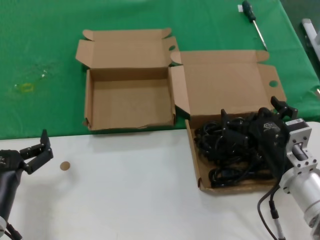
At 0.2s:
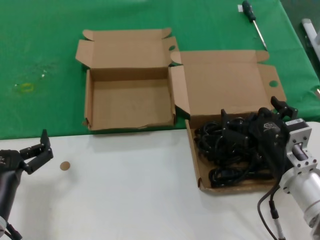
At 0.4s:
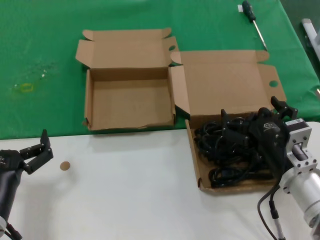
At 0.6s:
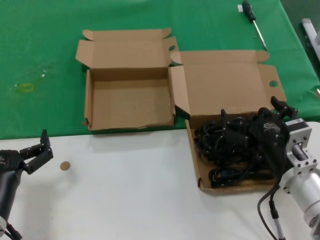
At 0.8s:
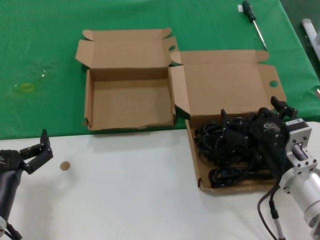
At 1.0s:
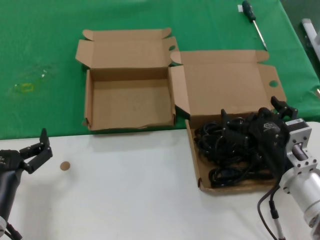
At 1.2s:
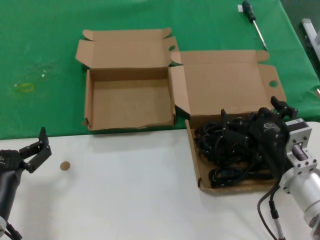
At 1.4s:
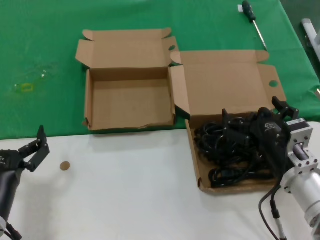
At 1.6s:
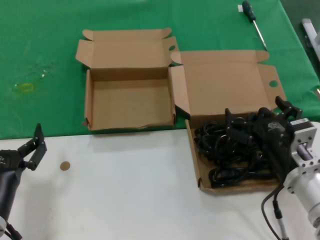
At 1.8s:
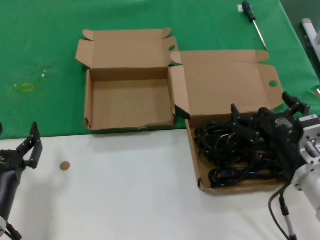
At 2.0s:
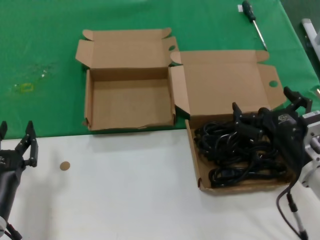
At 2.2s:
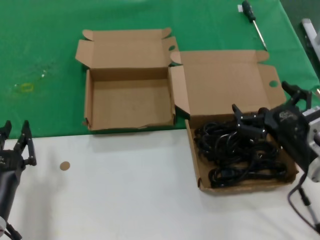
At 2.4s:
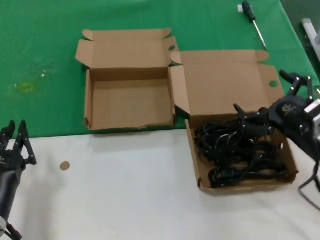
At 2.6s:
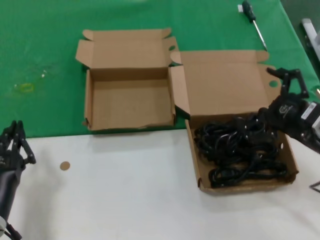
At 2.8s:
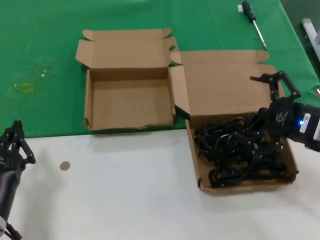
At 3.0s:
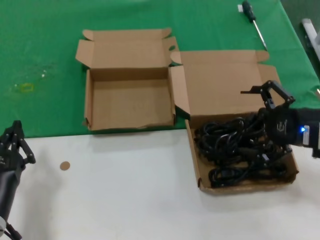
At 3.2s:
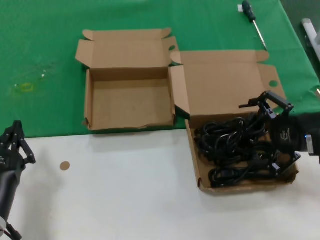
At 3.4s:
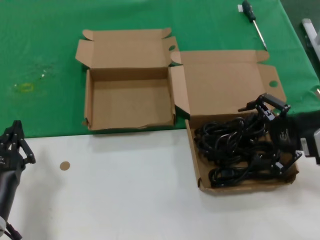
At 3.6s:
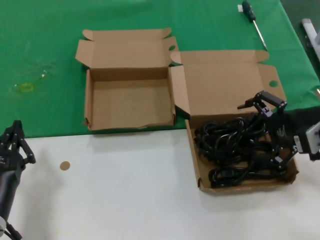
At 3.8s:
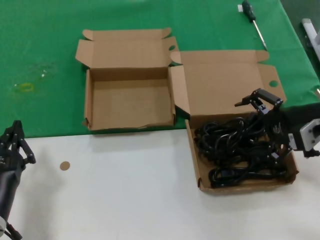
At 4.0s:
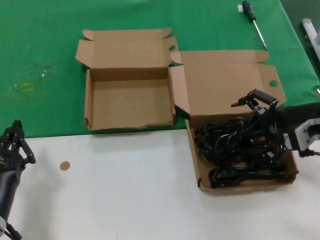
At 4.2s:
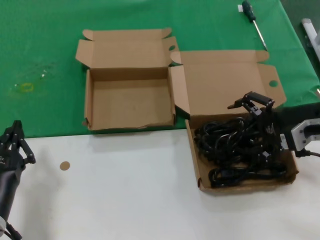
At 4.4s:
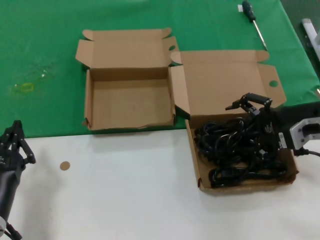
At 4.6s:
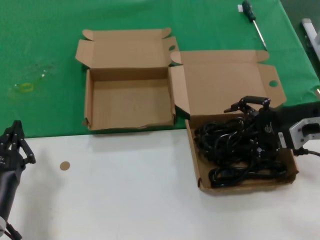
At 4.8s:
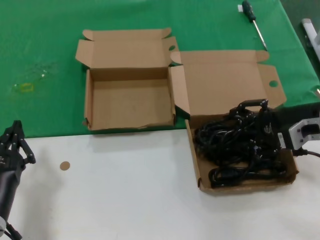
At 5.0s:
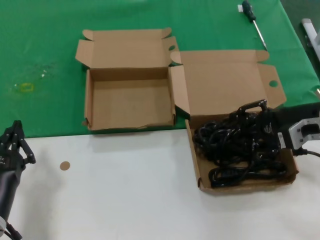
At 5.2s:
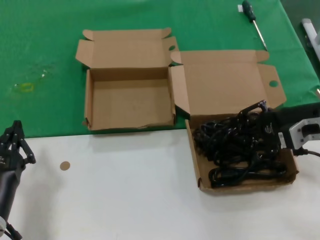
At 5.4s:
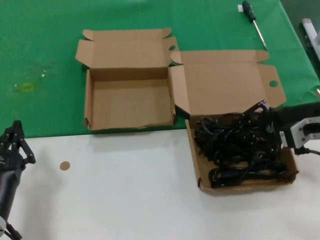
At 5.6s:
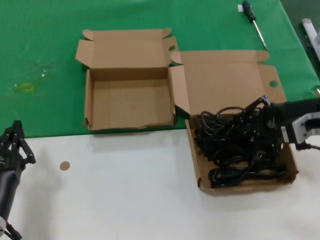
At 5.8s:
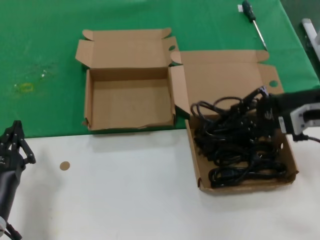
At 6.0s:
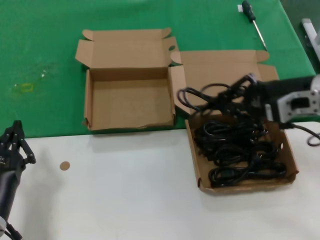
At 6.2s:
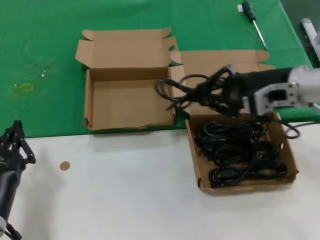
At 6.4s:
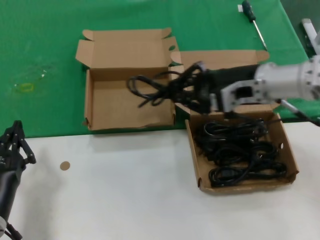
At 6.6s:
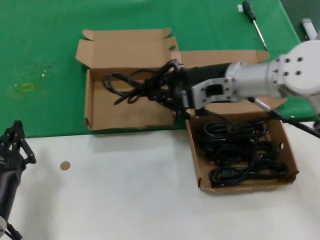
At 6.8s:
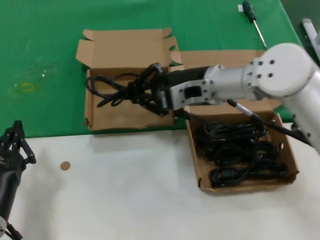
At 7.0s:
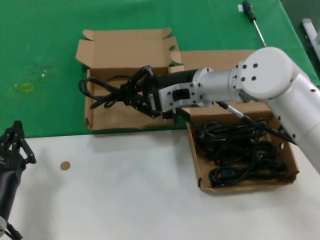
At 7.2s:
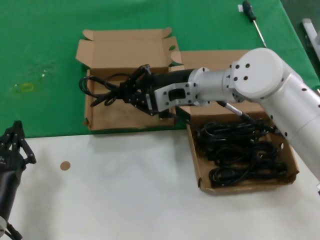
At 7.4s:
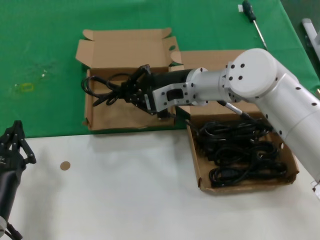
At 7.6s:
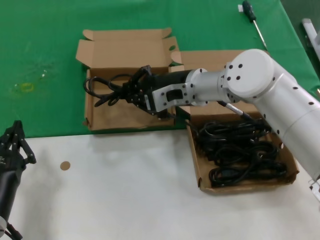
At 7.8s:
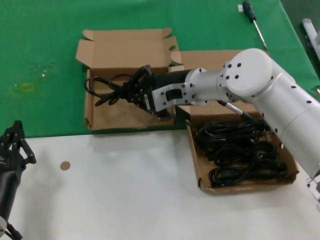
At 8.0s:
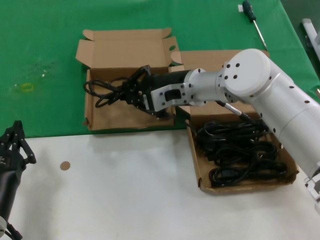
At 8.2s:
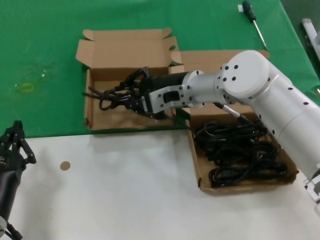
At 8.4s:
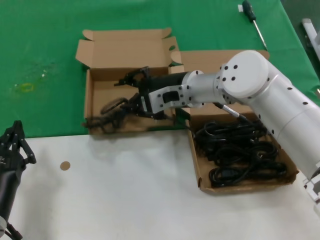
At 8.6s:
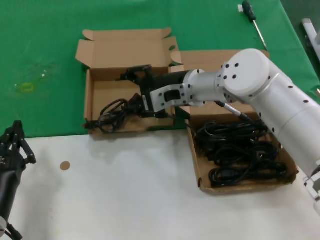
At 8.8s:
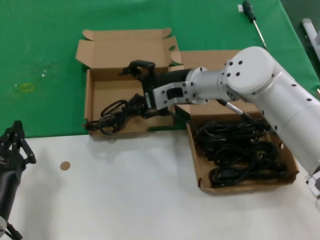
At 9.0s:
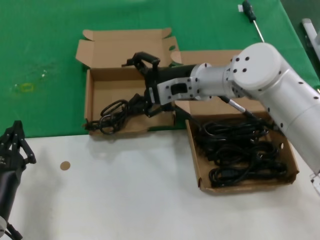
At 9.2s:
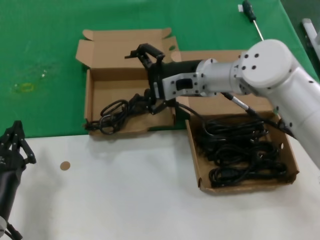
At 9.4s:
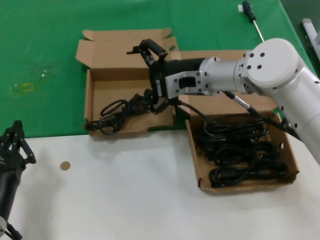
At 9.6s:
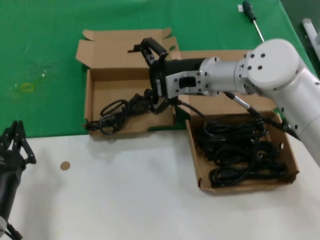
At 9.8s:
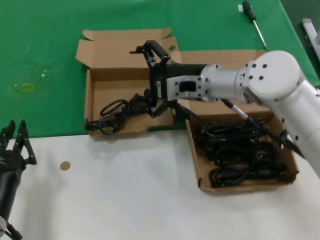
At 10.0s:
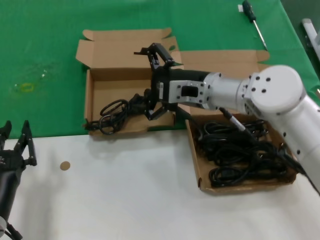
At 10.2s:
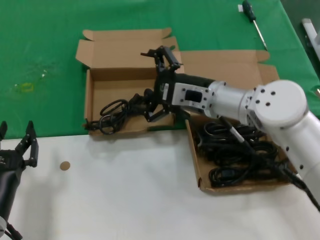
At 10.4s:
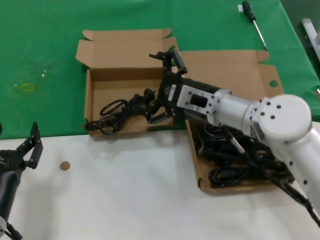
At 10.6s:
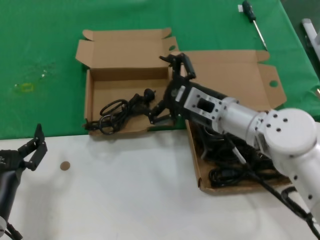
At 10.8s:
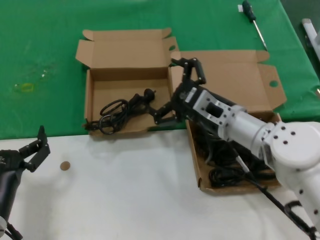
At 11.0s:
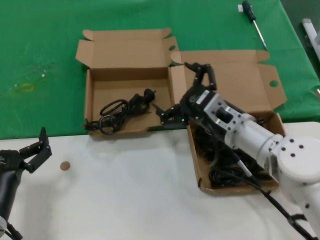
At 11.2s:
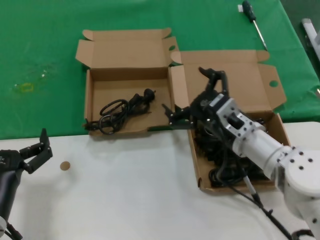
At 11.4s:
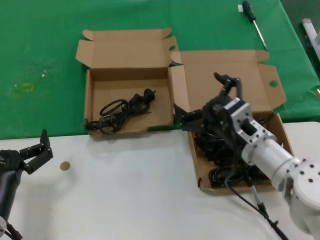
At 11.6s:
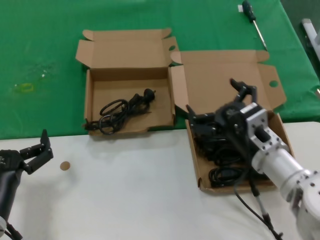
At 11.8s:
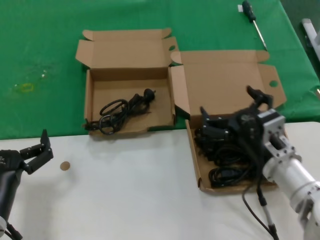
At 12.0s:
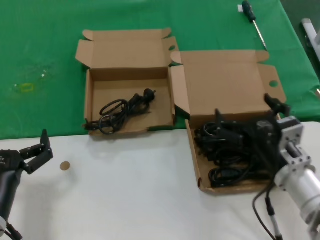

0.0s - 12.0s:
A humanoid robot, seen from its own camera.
Task of the whole recording: take the parts from the box containing them and put them into an empty box.
Step, 0.0s - 5.2s: Grasp the data cable.
Step, 5.4s - 8.6s: Place the data cable in the another box.
0.0s - 1.6s: The two hands keep their place.
1.6s - 3.0s: The right hand moves upward and to the right, roughly 15 cm.
3.0s - 4.4s: The right hand moves forward, some 5 cm.
4.4s - 6.0s: The hands make only small movements.
6.0s - 7.6s: The right hand heads to the left and forward, covering roughly 20 cm.
7.6s - 9.0s: Neither hand changes place.
9.0s - 10.4s: The right hand moves backward, roughly 5 cm.
10.4s - 12.0s: The right hand travels backward, downward and to the right by roughly 20 cm.

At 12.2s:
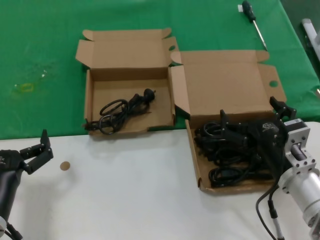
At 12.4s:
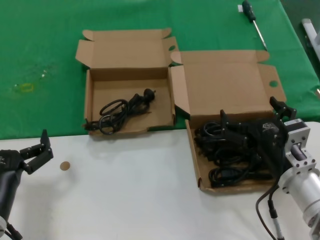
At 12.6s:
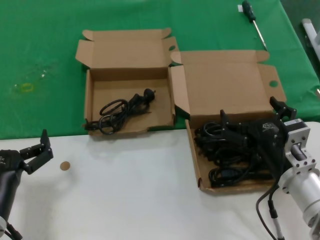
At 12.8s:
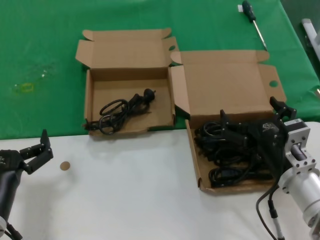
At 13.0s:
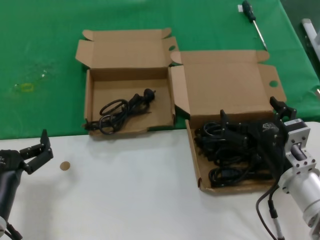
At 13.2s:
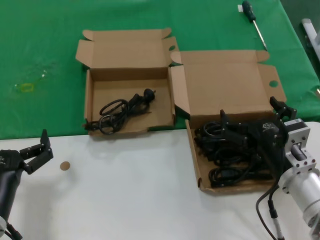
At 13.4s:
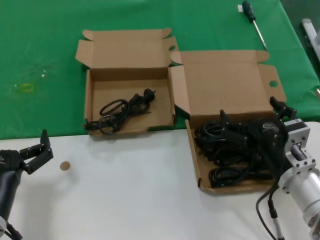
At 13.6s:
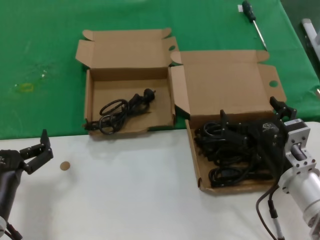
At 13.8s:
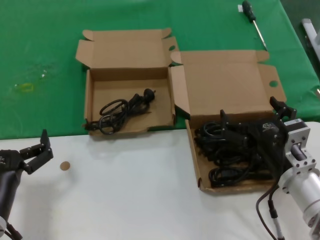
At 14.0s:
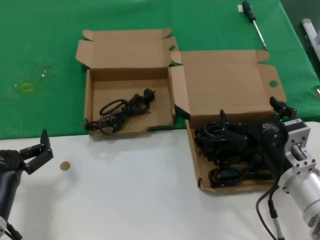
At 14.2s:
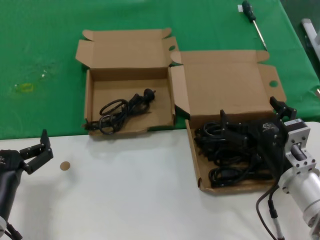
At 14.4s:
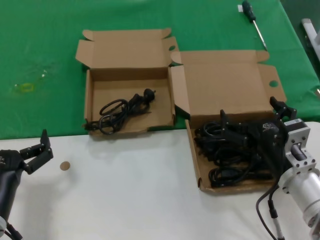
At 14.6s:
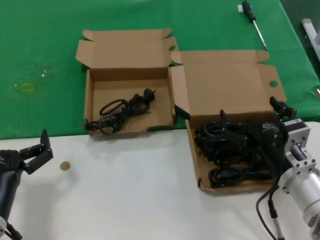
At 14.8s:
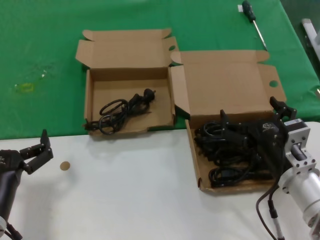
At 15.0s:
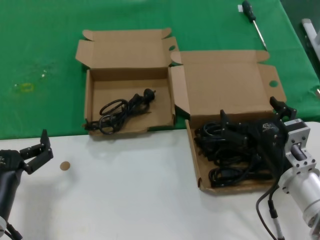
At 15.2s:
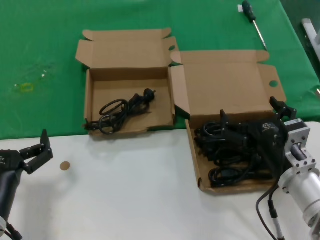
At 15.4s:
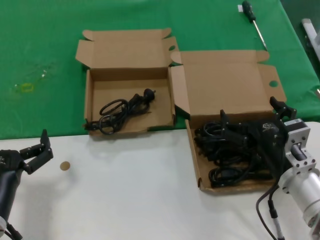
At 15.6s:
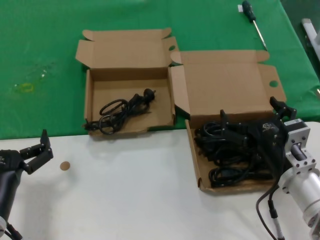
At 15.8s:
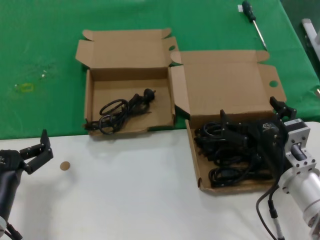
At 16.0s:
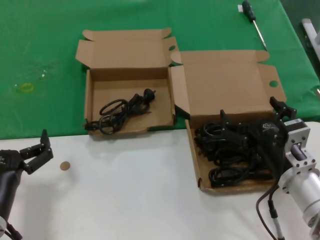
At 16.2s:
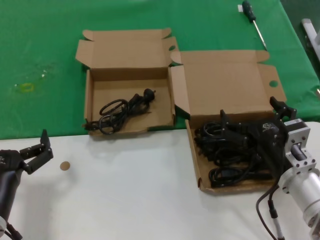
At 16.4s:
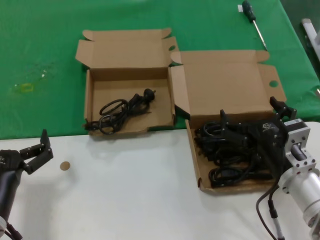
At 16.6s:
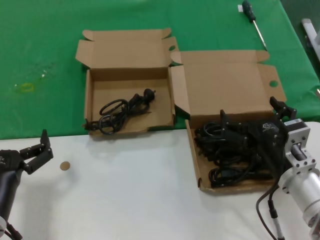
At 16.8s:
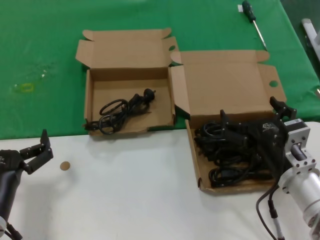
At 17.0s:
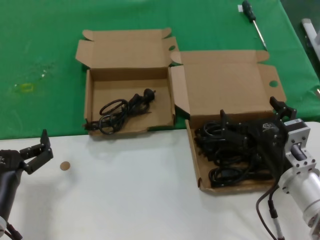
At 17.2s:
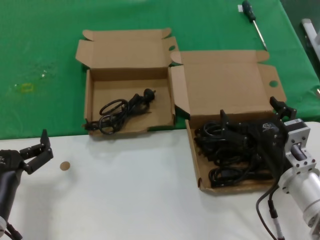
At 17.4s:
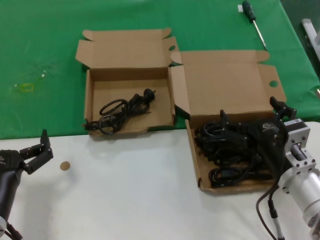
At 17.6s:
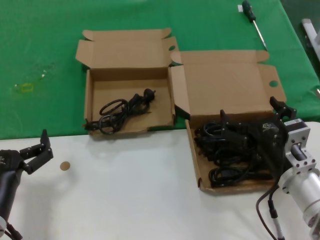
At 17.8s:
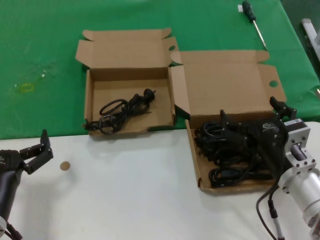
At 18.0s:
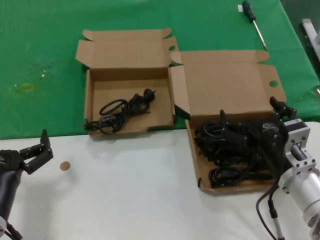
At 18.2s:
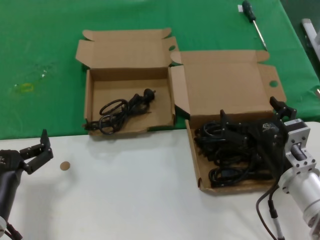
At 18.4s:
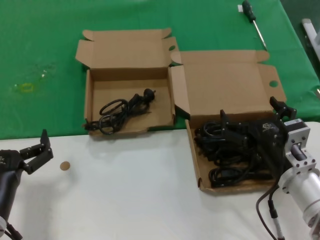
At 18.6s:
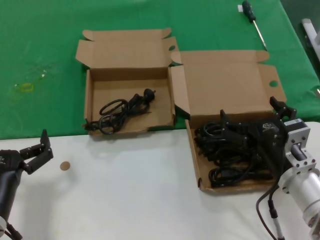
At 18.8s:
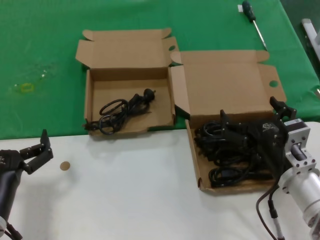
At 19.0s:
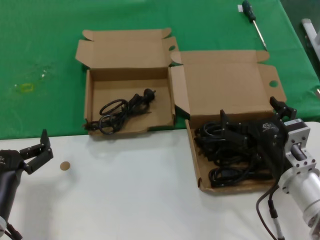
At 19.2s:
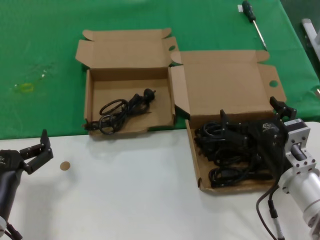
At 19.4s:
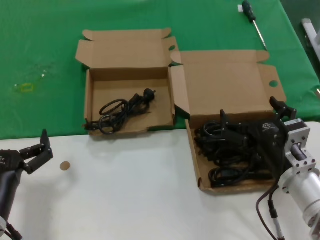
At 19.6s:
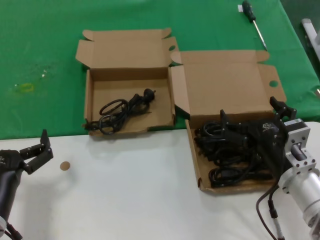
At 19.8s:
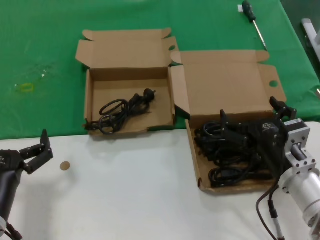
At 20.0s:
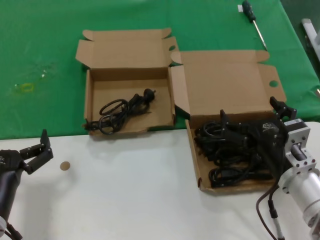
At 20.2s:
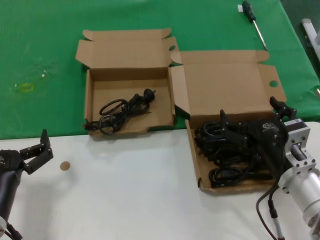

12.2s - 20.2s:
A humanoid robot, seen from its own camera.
Task of the whole recording: take the parts from the box containing them and put them into an empty box.
12.2s - 20.2s: Both hands stay put.

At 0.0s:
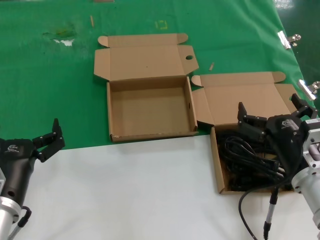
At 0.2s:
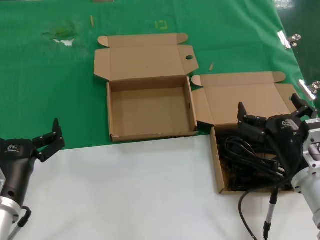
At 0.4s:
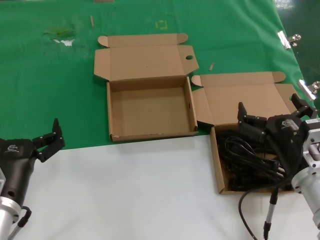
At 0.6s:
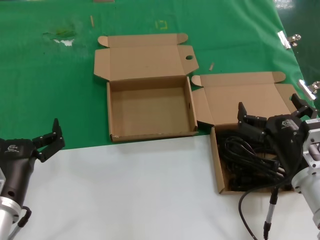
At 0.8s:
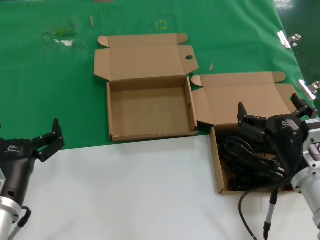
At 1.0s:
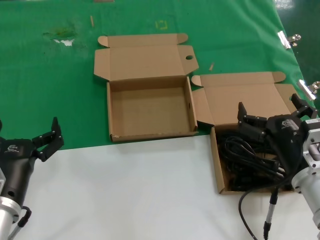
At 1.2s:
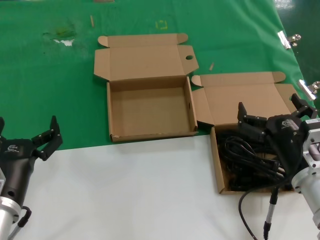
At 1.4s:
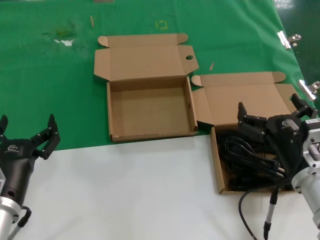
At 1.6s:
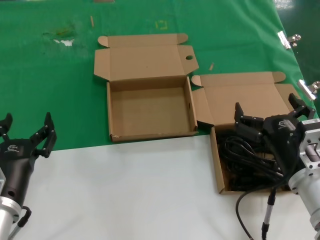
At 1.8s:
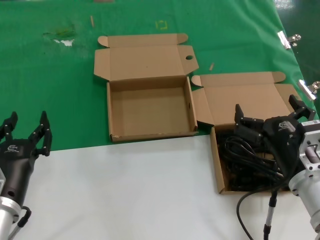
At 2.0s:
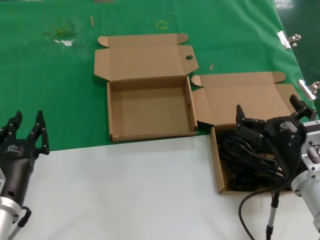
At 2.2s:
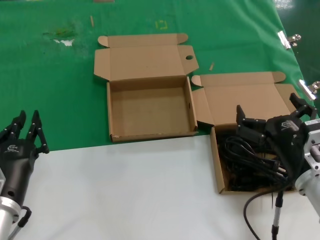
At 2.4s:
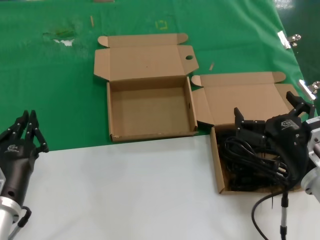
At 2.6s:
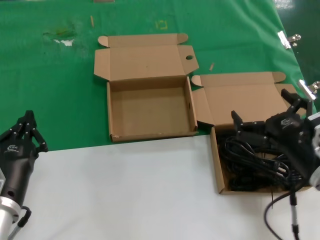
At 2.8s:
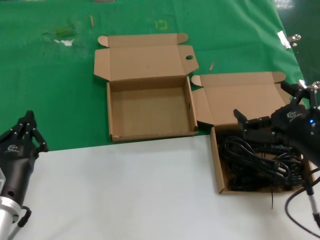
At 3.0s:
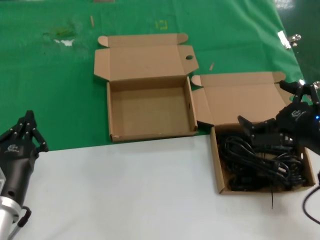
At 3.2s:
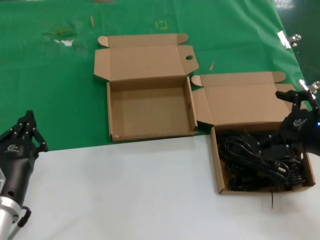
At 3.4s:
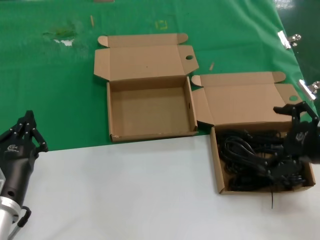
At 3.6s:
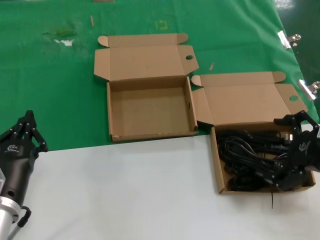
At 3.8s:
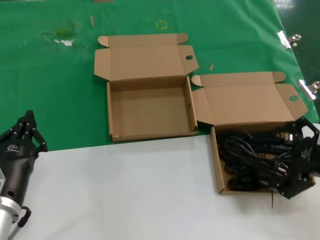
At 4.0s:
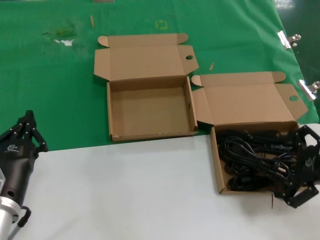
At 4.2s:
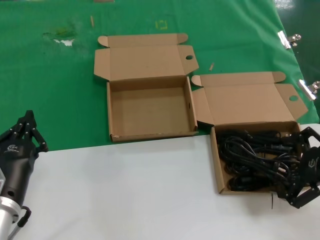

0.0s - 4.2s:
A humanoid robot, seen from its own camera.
Task of the whole recording: take the parts from the box containing them and put them into an empty box.
0.0s - 1.4s: The two hands keep their place.
1.4s - 2.8s: The right hand goes some 10 cm to the right and upward.
2.8s - 4.2s: The right hand is displaced to the right by about 10 cm.
